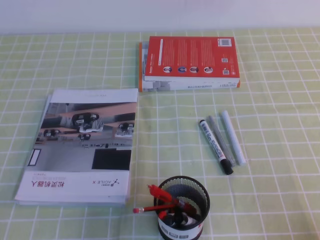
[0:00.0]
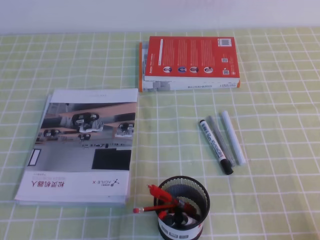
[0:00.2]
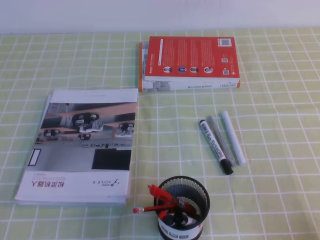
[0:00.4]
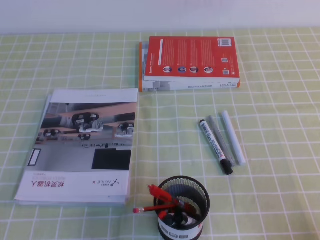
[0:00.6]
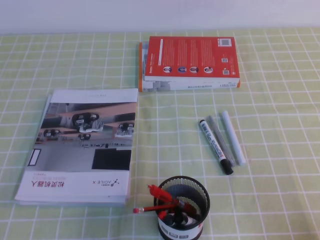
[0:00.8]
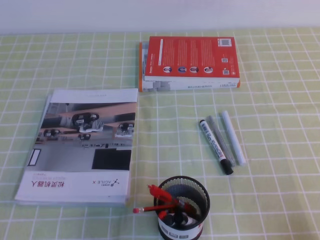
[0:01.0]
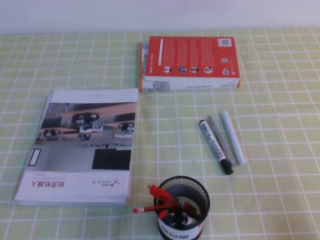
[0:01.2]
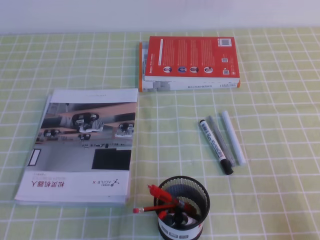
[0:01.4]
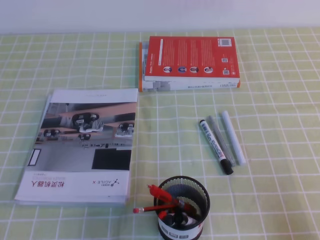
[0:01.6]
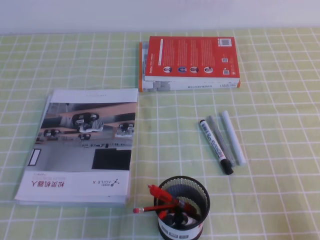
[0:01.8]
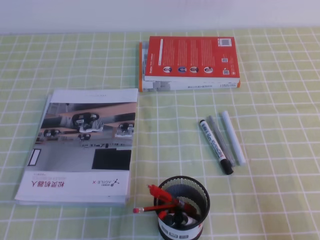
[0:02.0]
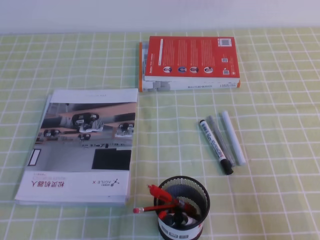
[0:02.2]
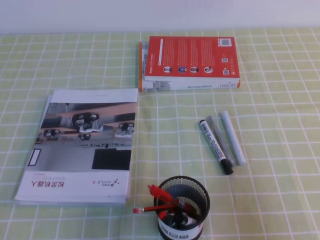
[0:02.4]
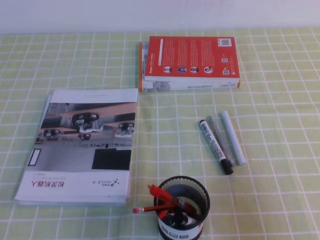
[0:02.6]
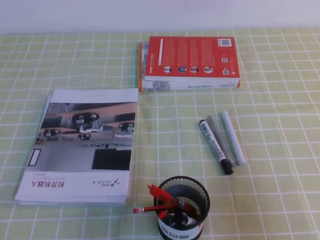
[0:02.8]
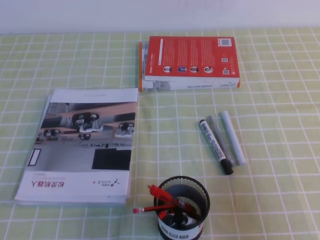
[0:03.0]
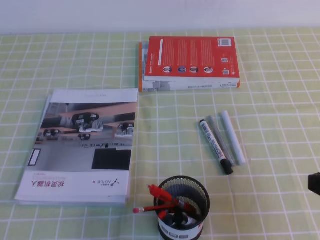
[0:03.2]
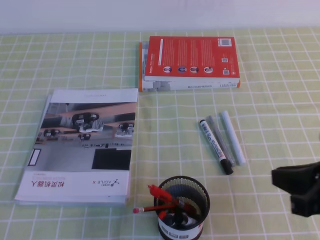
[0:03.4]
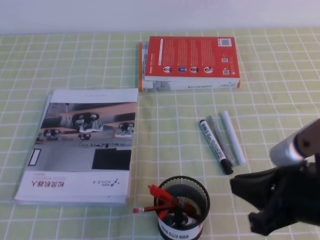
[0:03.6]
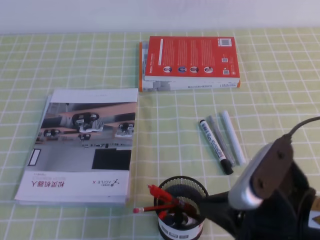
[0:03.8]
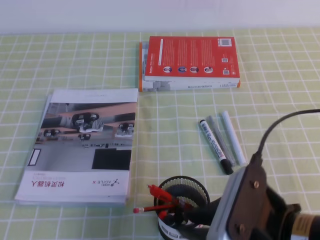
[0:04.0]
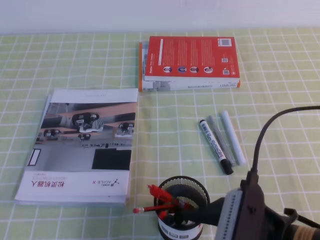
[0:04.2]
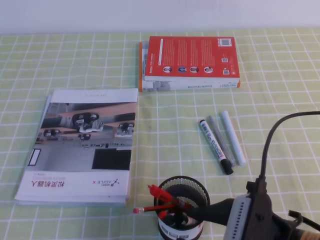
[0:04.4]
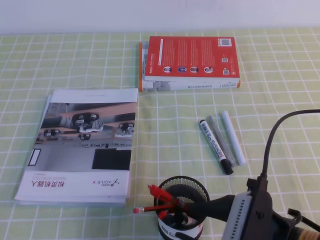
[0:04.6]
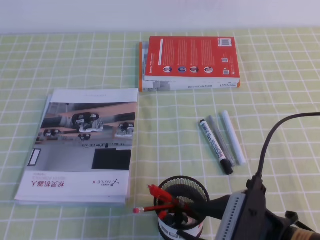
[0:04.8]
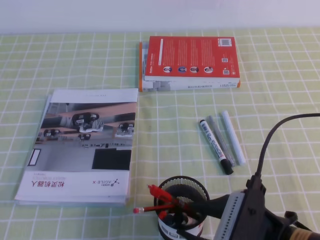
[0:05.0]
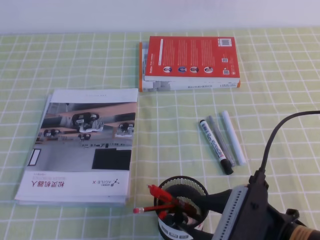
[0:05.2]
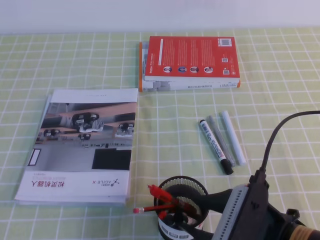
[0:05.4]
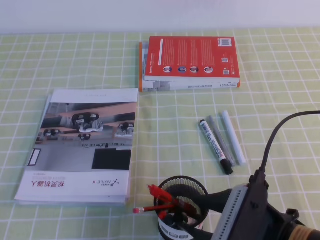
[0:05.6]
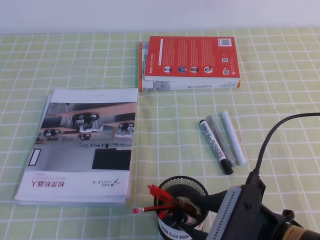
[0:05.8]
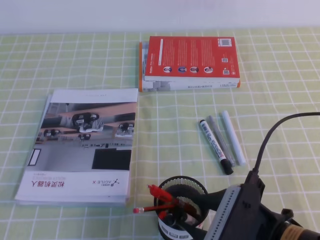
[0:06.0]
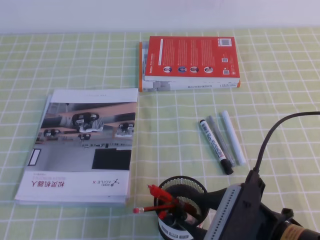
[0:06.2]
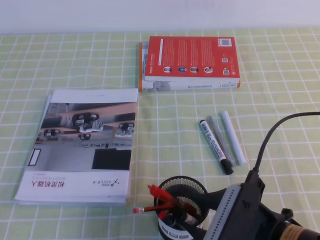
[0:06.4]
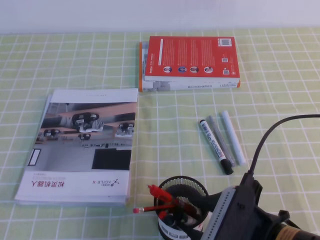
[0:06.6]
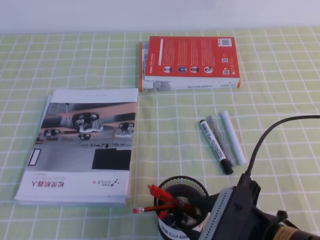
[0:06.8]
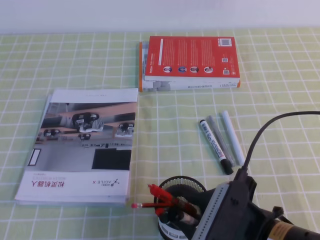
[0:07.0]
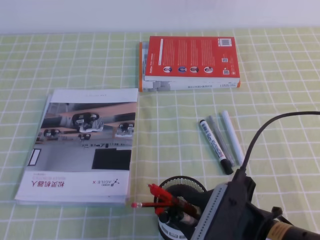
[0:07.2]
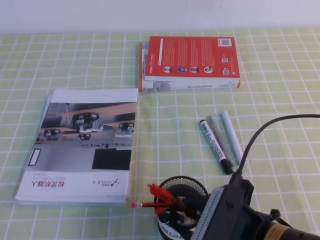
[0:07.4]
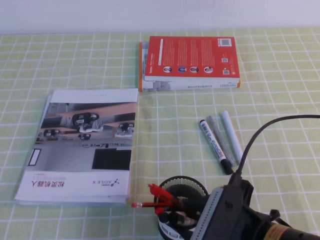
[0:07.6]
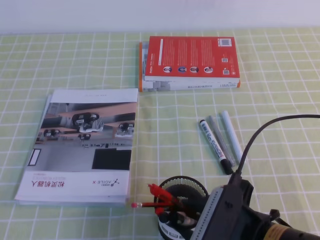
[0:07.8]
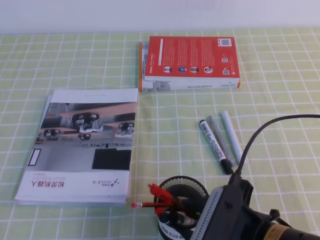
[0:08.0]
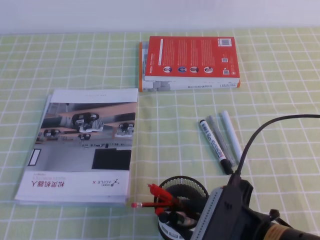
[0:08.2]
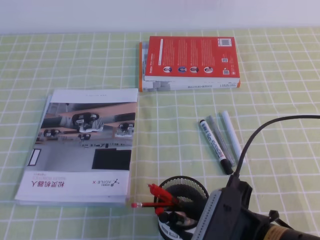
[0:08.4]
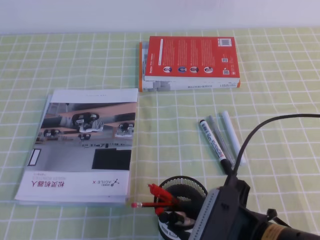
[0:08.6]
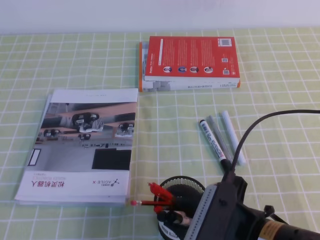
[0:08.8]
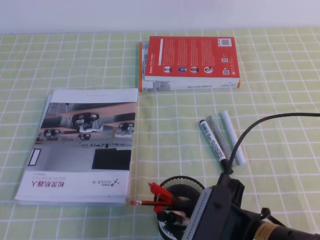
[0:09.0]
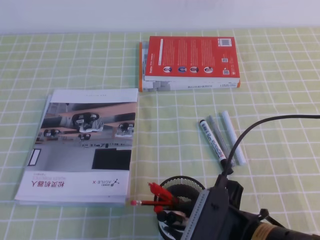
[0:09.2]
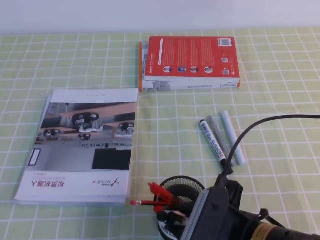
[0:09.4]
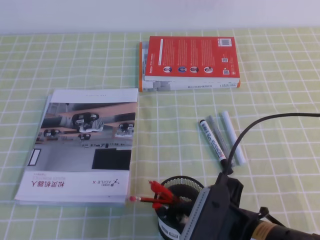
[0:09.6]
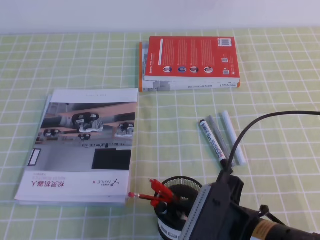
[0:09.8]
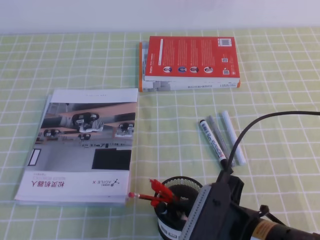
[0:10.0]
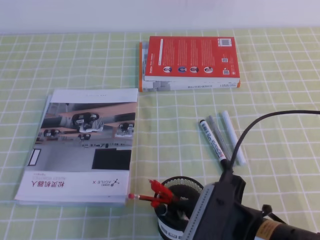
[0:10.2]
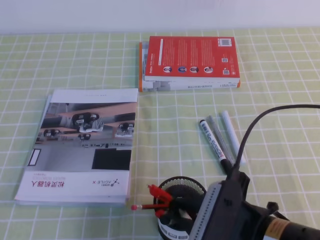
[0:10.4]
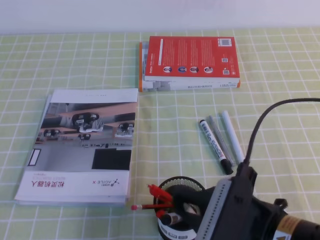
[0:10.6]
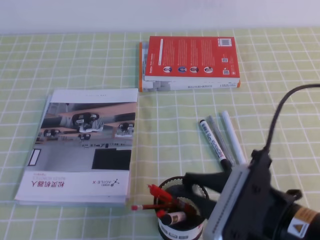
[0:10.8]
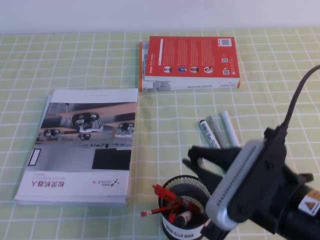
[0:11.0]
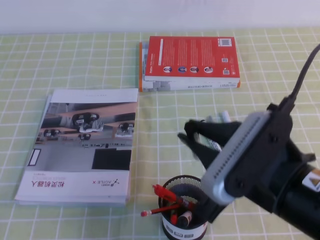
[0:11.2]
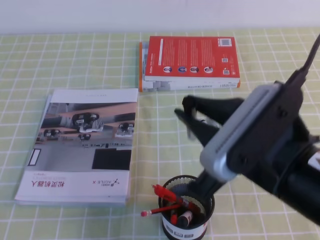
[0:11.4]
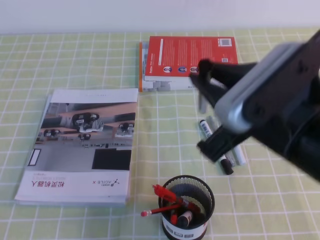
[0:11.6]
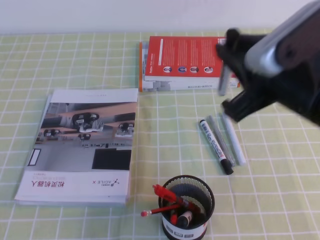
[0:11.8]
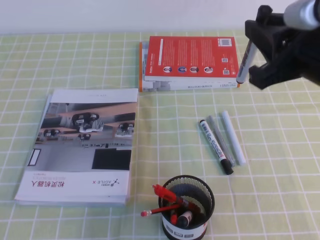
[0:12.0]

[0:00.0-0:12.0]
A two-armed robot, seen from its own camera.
0:01.6 to 0:03.0: The right gripper moves upward and forward, some 10 cm.
0:03.0 to 0:04.4: The right gripper travels to the left by roughly 15 cm, and opens.
0:04.4 to 0:07.6: The grippers make only small movements.
0:07.6 to 0:09.0: The two grippers keep their place.
0:09.0 to 0:10.4: The right gripper closes.
0:10.4 to 0:12.0: The right gripper shifts approximately 20 cm upward, forward and to the right.

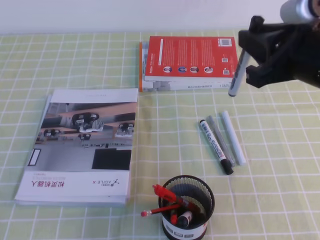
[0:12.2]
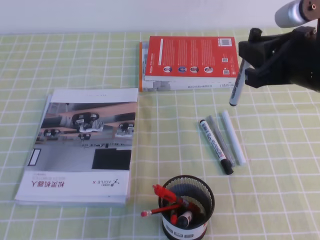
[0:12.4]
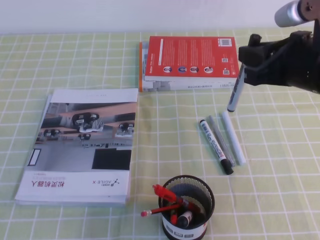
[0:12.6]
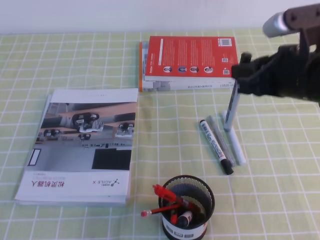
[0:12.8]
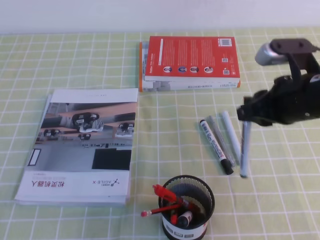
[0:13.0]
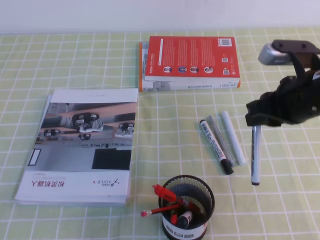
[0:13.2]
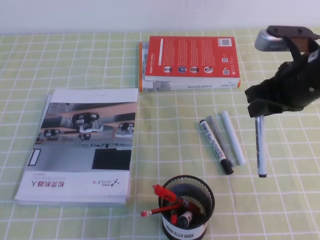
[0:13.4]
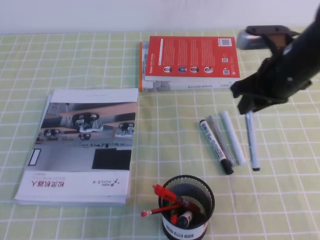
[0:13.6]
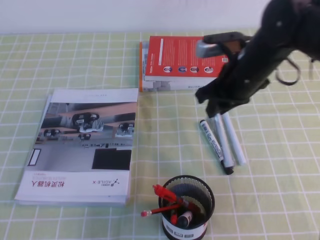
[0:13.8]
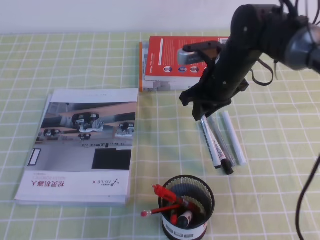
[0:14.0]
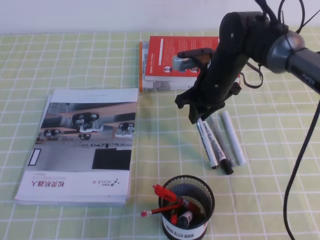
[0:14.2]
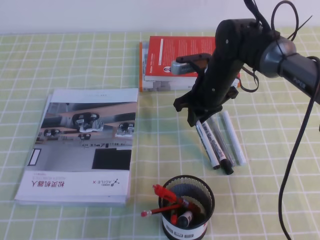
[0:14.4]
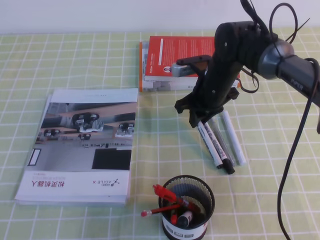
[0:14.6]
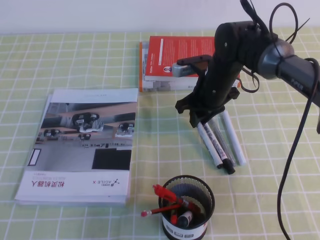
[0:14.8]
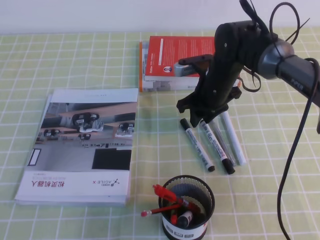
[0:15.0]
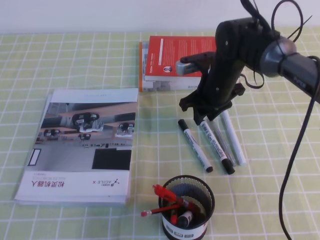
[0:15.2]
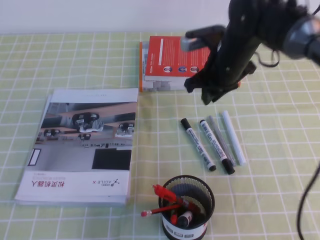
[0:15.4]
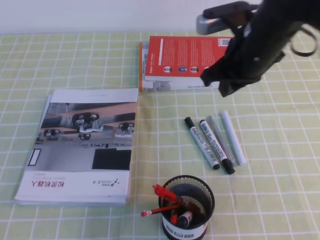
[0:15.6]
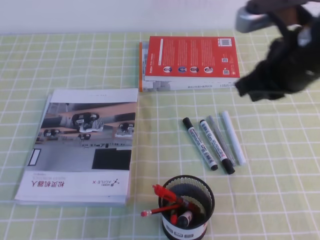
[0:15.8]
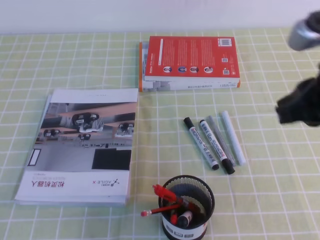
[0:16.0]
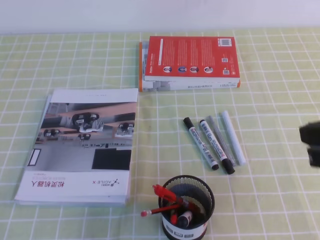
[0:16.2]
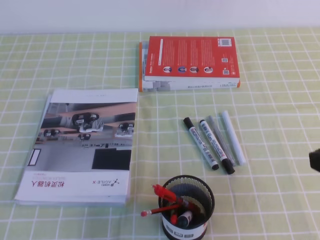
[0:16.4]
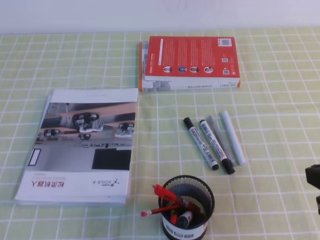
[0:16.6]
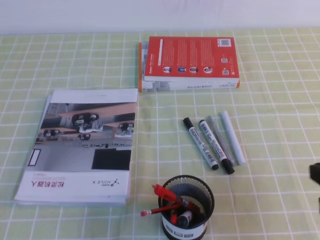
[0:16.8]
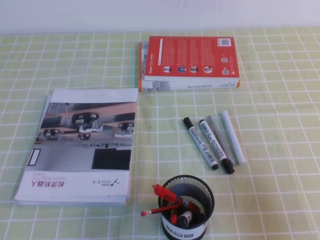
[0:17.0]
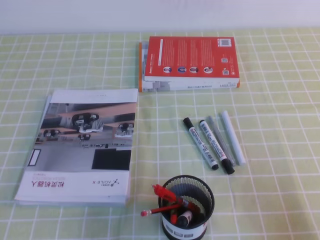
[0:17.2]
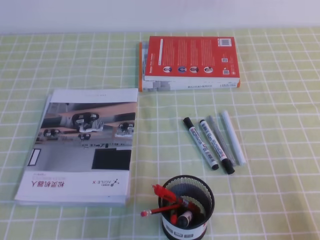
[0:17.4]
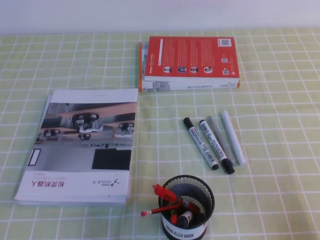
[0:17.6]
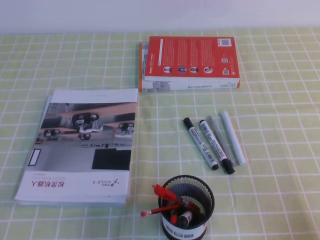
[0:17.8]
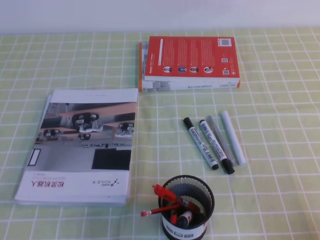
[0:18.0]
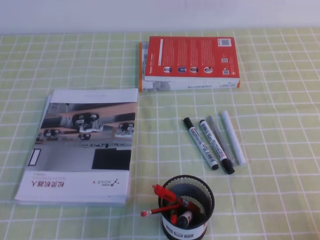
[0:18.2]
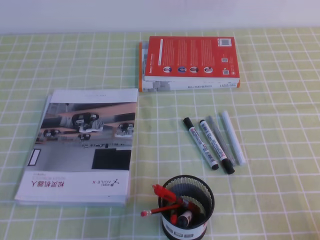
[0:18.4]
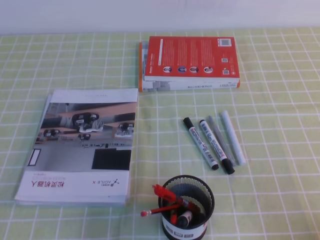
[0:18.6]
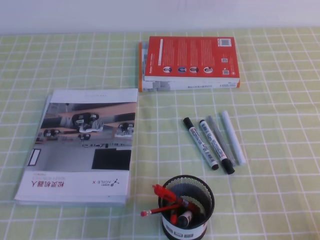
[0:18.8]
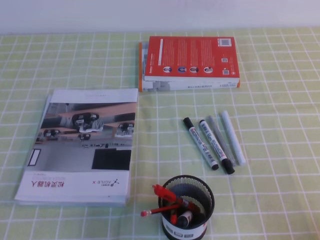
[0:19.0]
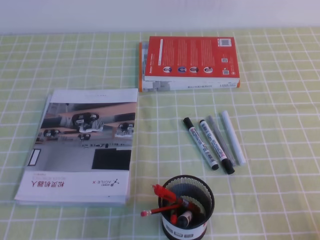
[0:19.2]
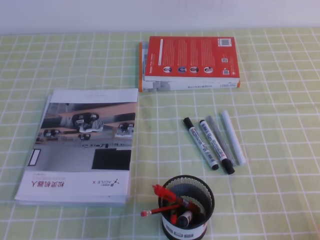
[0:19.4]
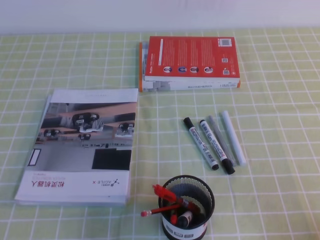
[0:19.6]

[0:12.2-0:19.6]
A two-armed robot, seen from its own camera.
Step, 0:12.2 to 0:19.6: Pick up the pen from the pen holder.
0:12.2 to 0:13.6: The right gripper goes about 15 cm forward and downward.
0:13.6 to 0:15.2: The right gripper shifts about 15 cm forward, to the left and downward.
0:15.2 to 0:16.6: The right gripper is displaced backward and to the right by some 35 cm, and closes up.
0:16.6 to 0:18.2: The right gripper moves downward, backward and to the right, roughly 15 cm.
0:18.2 to 0:19.6: The two grippers keep their place.
